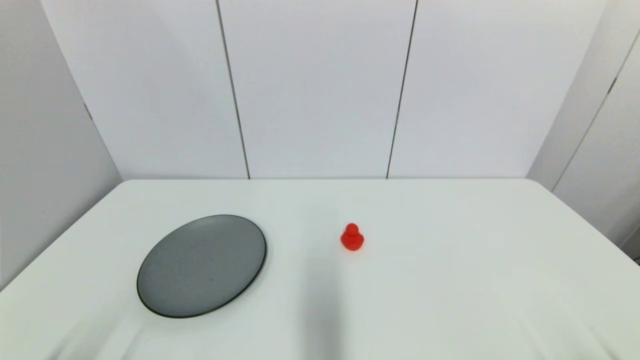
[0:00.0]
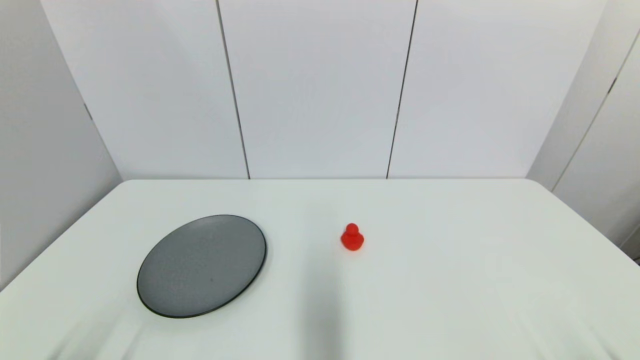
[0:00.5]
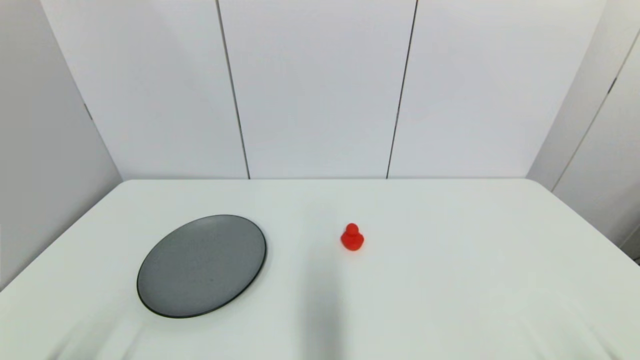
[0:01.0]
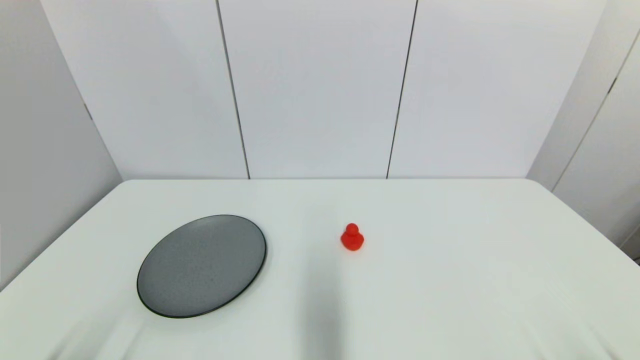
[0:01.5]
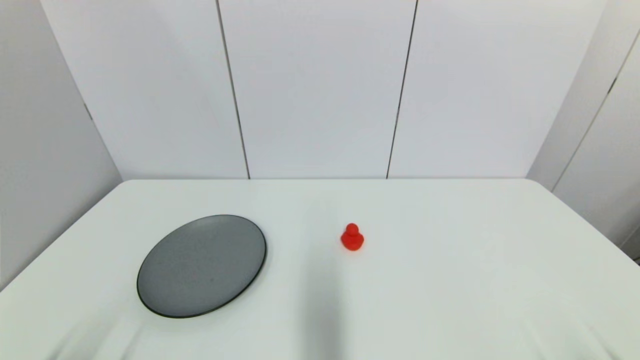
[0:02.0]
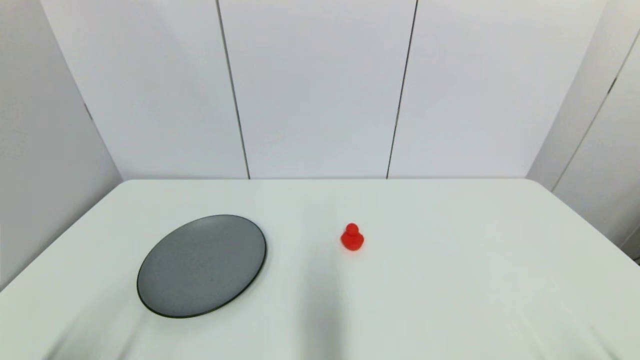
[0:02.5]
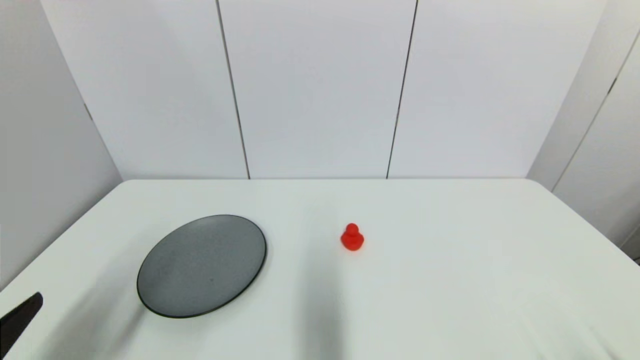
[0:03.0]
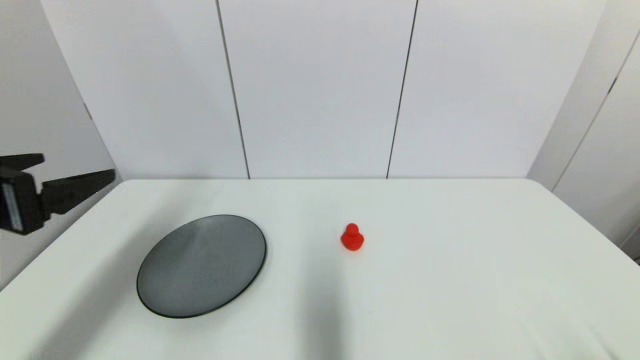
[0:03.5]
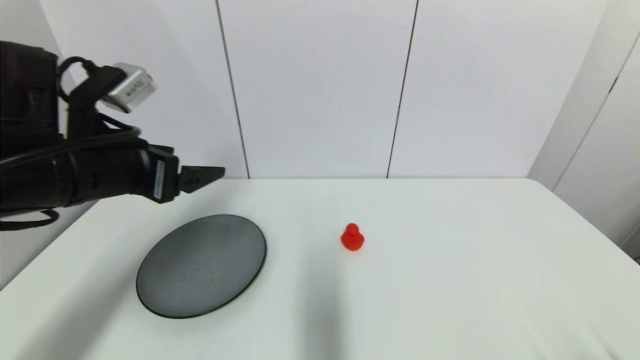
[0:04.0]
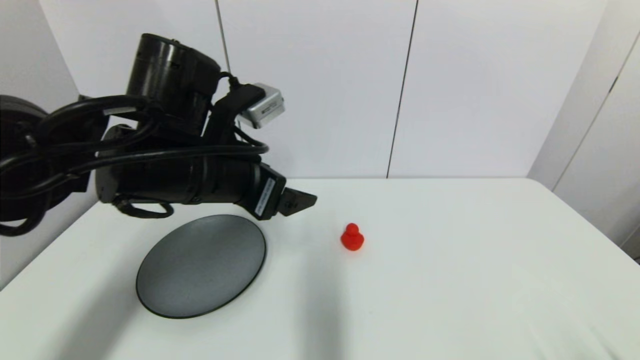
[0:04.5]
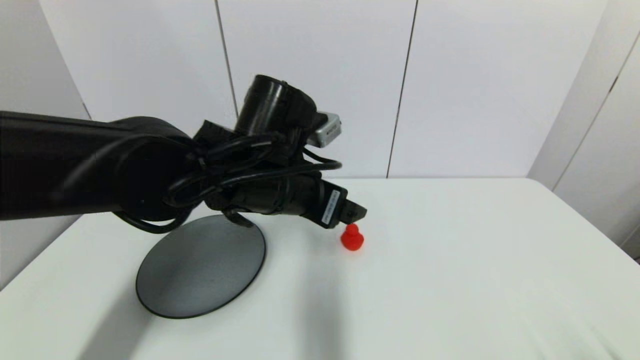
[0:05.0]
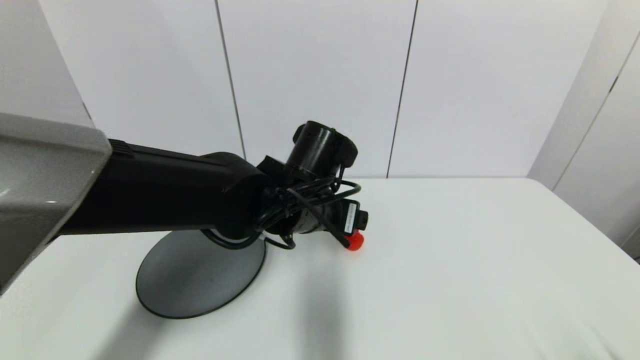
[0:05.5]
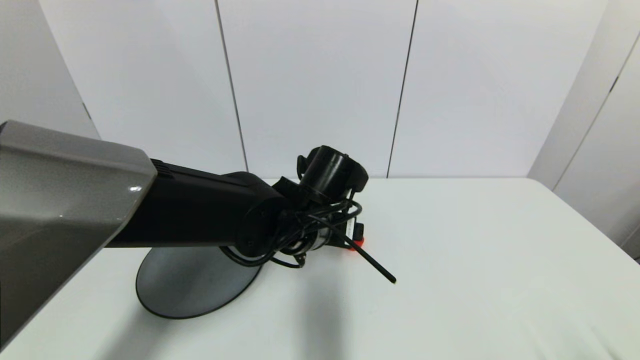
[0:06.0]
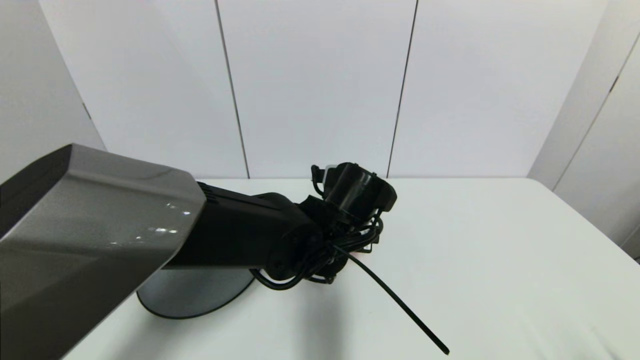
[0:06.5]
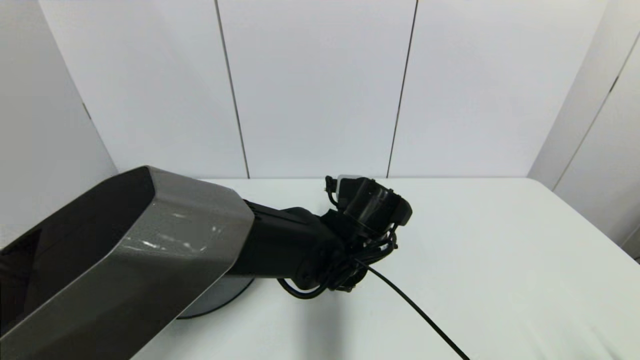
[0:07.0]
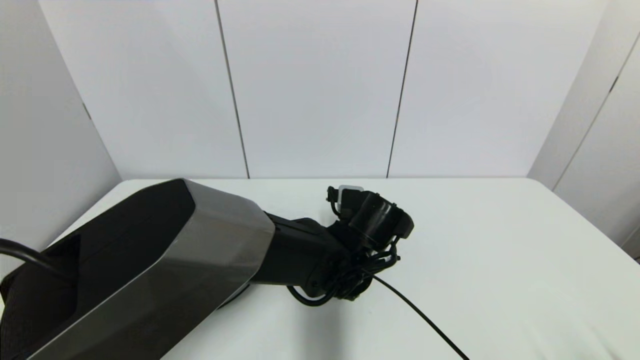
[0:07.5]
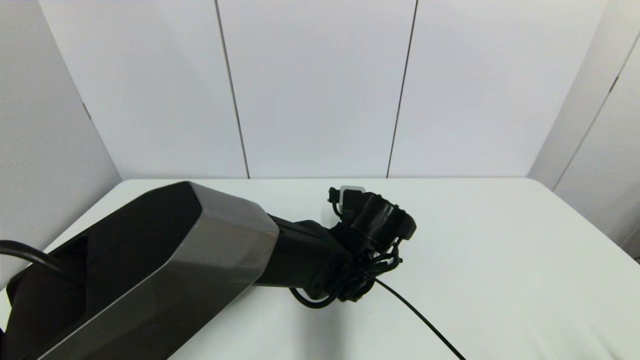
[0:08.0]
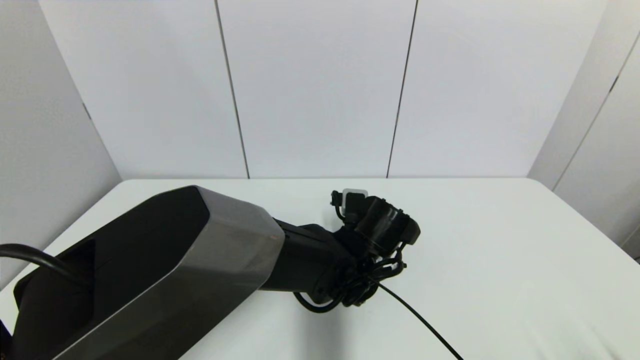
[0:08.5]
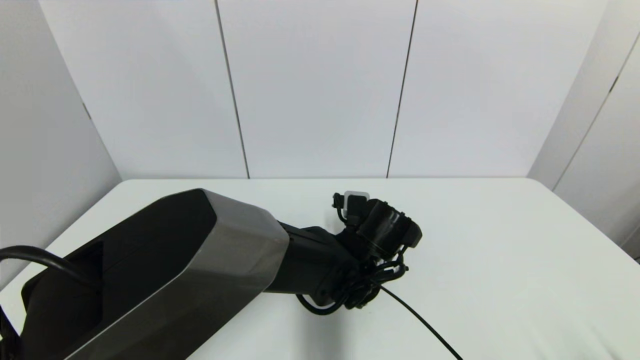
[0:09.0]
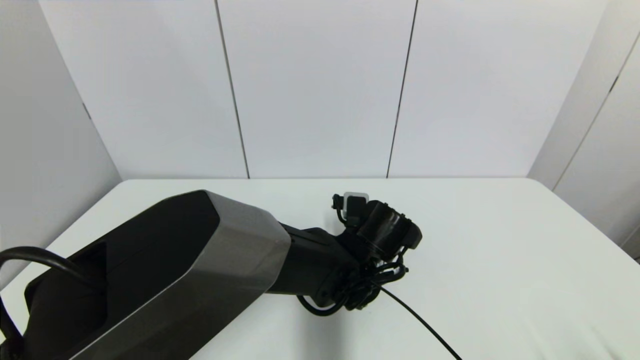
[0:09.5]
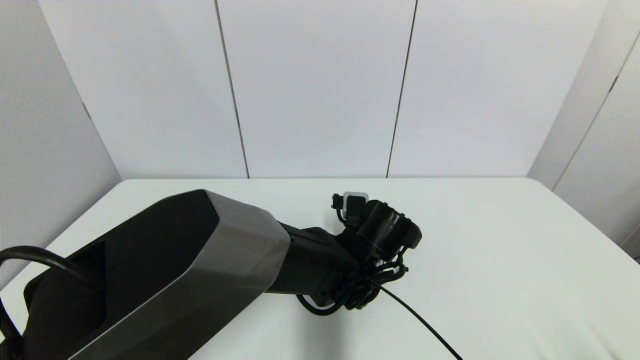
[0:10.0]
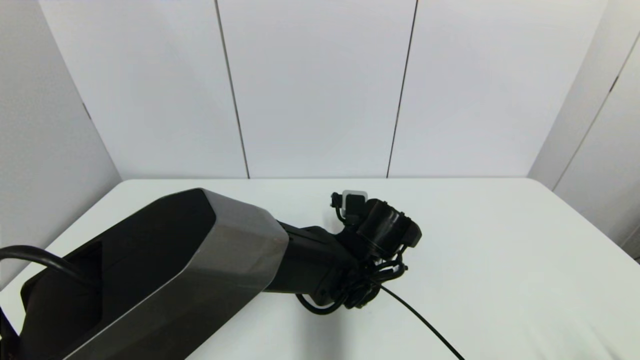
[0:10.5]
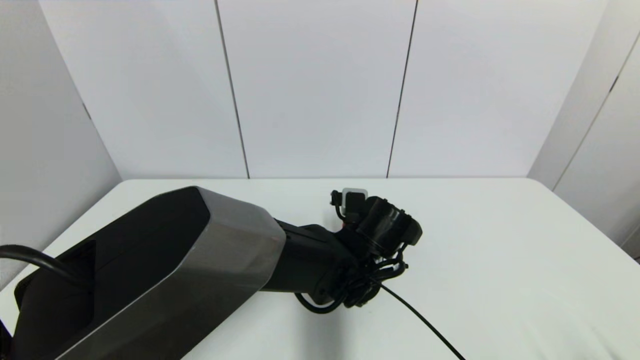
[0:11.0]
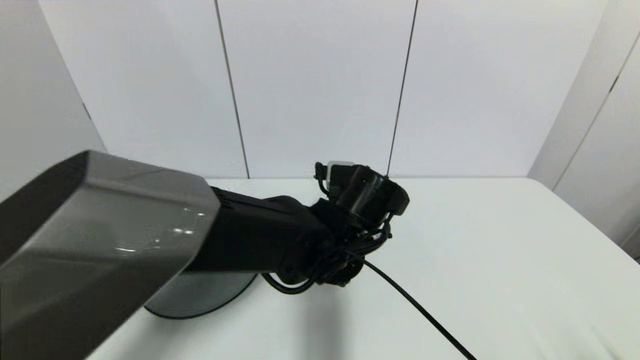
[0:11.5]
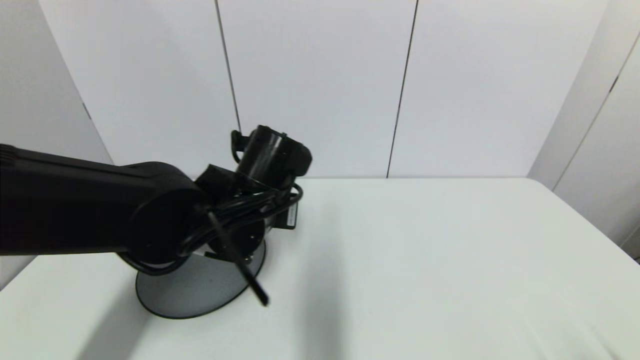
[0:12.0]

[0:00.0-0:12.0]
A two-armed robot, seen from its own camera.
Step, 3.0 to 11.0 s: Grasp the red duck with left gripper.
0.0 to 2.0 s: The two grippers keep their place.
2.0 to 4.0 s: The left gripper moves forward and upward, about 30 cm.
4.0 to 6.0 s: The left gripper shifts approximately 25 cm to the right and downward.
6.0 to 8.0 s: The left gripper moves downward and to the right, roughly 10 cm.
8.0 to 10.0 s: Neither gripper changes place.
10.0 to 12.0 s: The left gripper travels to the left and upward by some 15 cm, and closes.

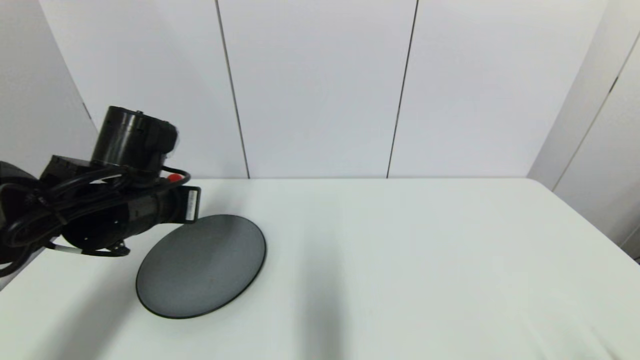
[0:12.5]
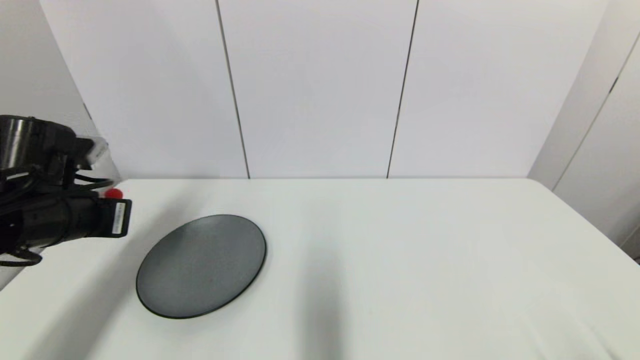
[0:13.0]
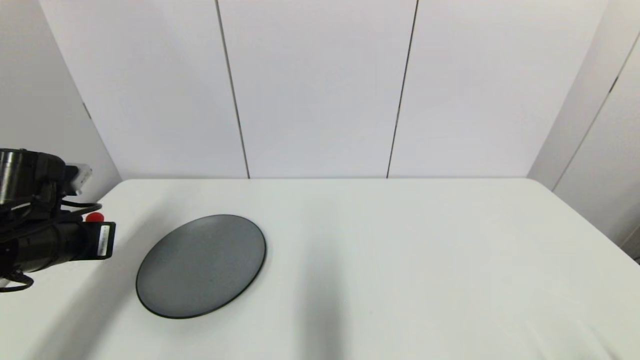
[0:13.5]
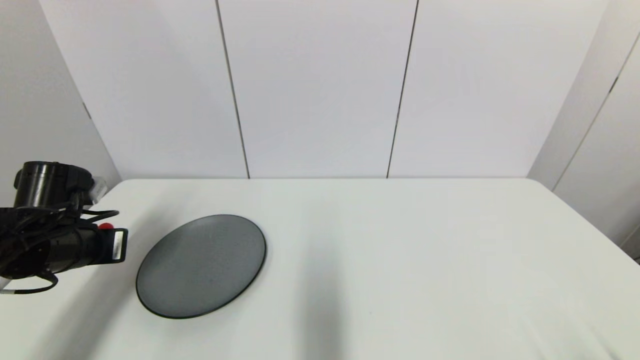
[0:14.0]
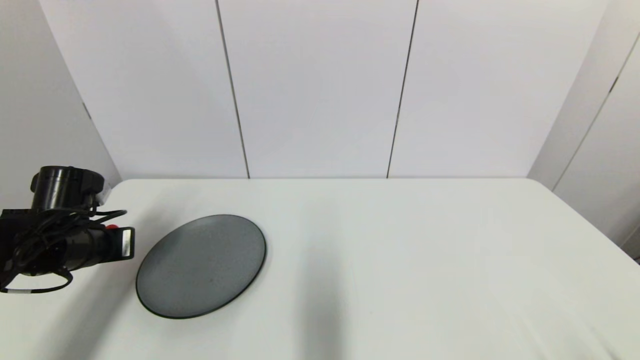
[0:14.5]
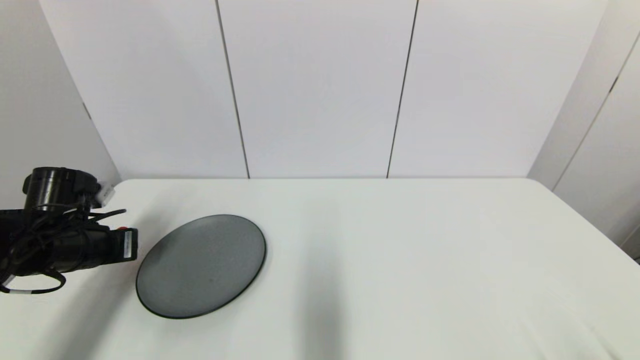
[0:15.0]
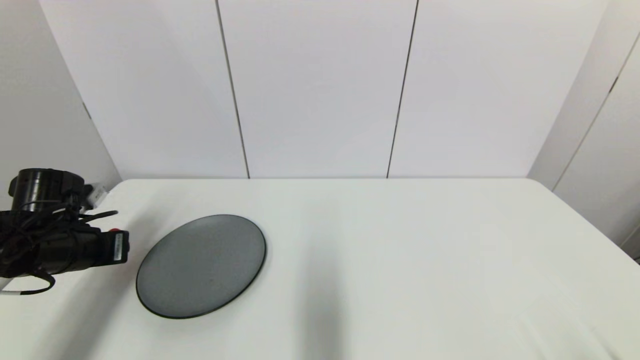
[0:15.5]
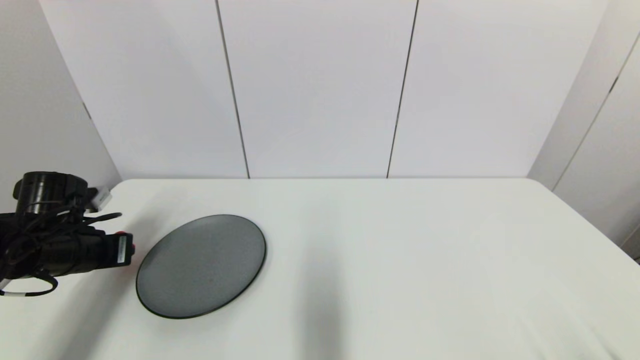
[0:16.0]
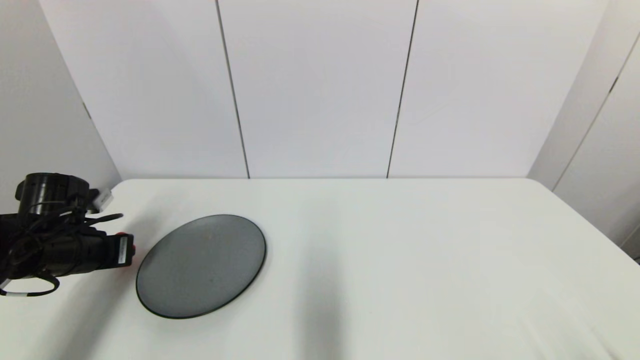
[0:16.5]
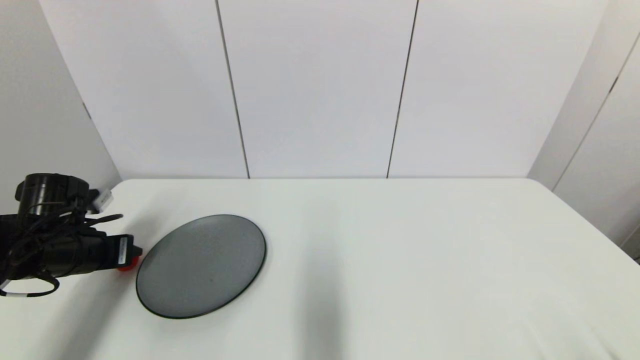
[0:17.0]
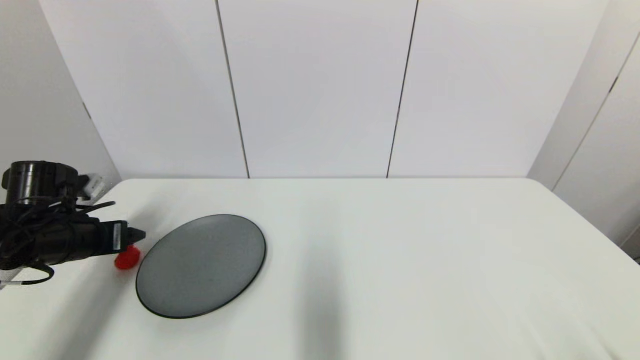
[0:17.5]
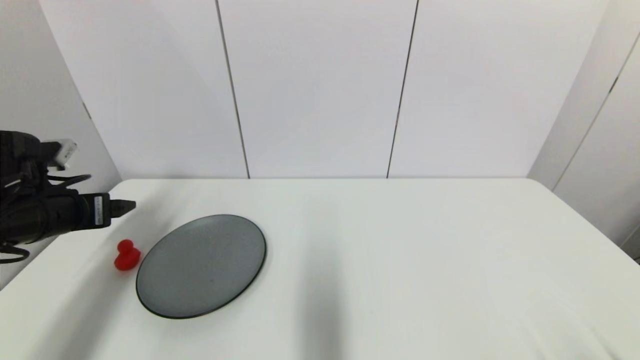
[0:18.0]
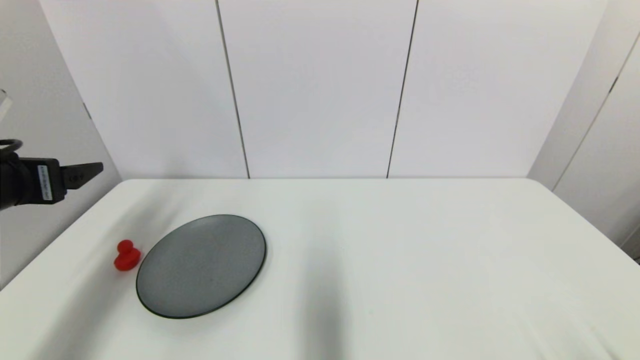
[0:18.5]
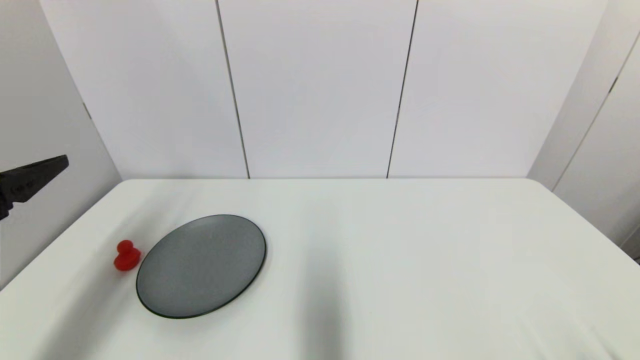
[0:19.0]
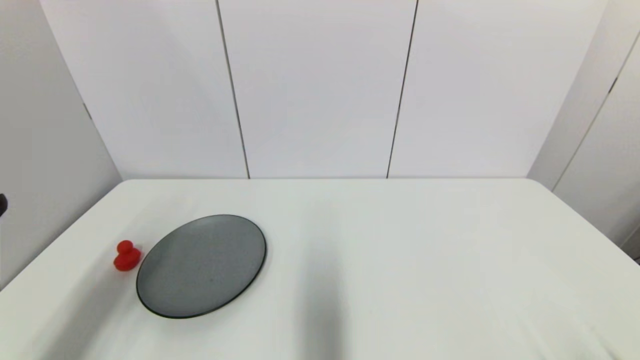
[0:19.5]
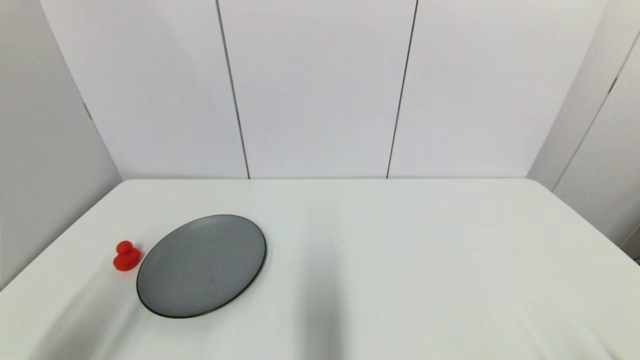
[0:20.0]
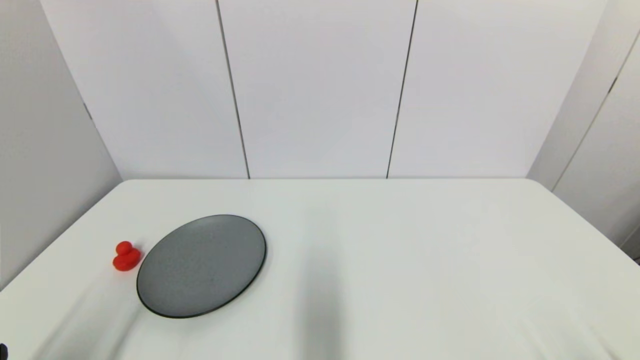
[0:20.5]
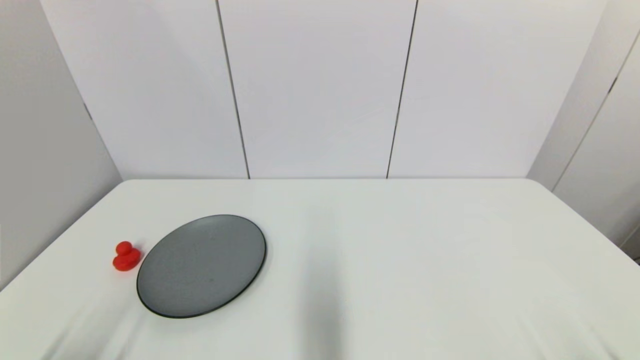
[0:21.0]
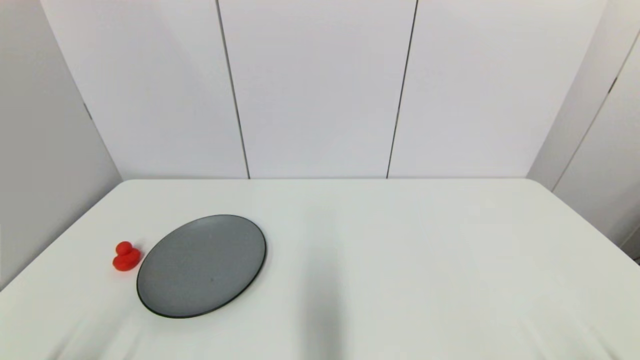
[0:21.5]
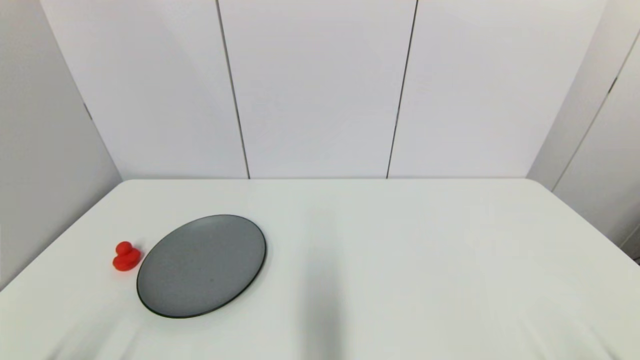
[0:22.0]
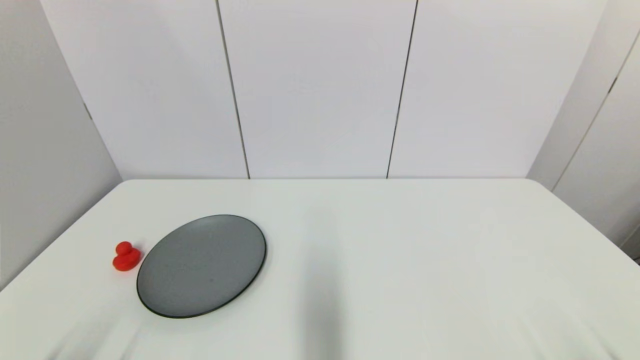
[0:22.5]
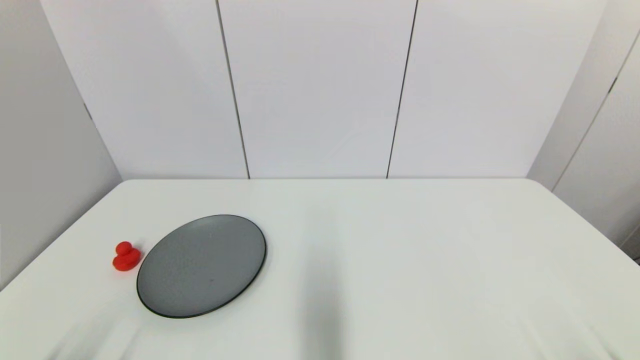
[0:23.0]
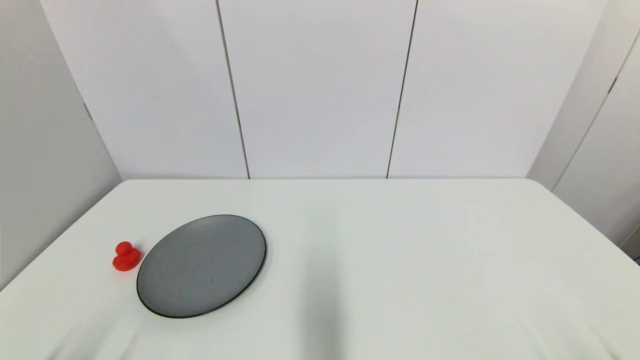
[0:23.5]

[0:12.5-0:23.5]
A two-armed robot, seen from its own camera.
Step, 12.5 to 17.0 s: Place the red duck on the table with left gripper.
12.5 to 14.5 s: The left gripper heads to the left and downward, covering approximately 15 cm.
14.5 to 16.0 s: The grippers make only small movements.
16.0 to 18.0 s: The left gripper goes some 5 cm upward, and opens up.
18.0 to 20.0 s: The left gripper is displaced backward by approximately 25 cm.
20.0 to 21.5 s: The left gripper goes approximately 15 cm downward.
